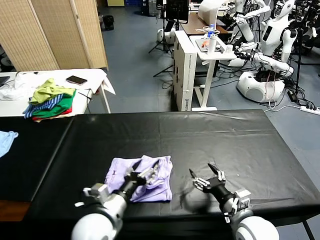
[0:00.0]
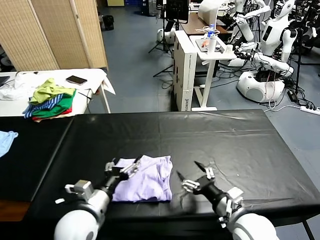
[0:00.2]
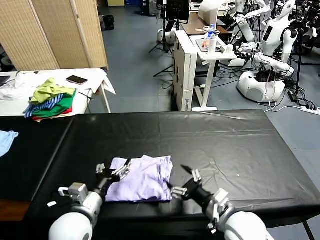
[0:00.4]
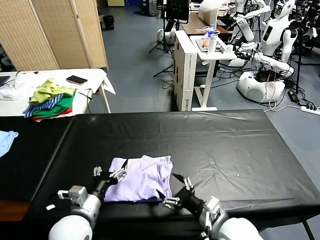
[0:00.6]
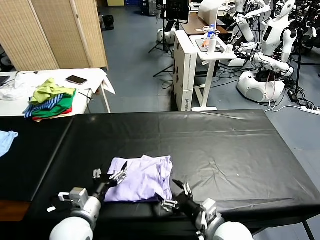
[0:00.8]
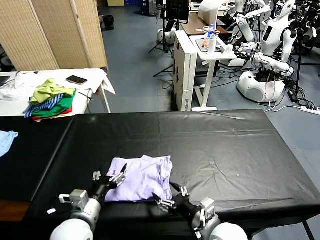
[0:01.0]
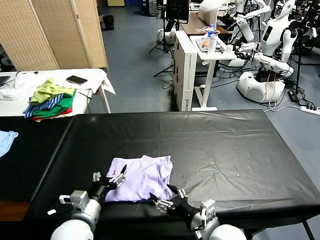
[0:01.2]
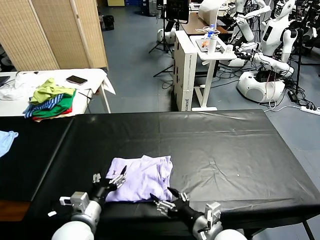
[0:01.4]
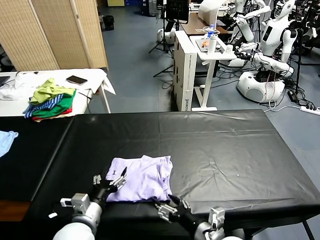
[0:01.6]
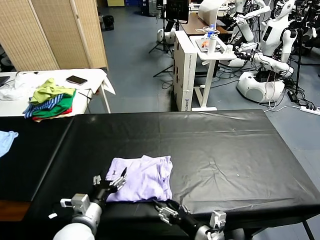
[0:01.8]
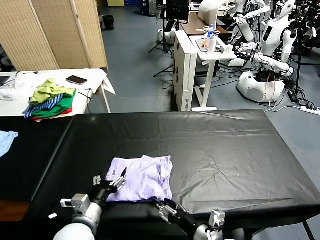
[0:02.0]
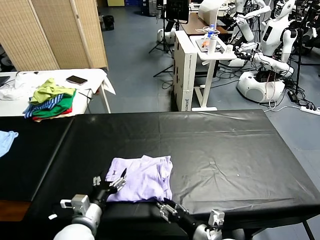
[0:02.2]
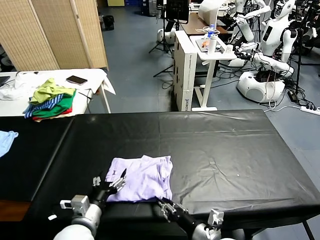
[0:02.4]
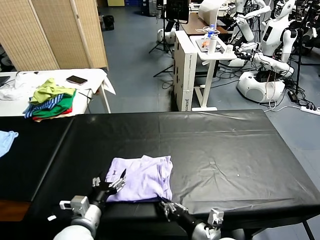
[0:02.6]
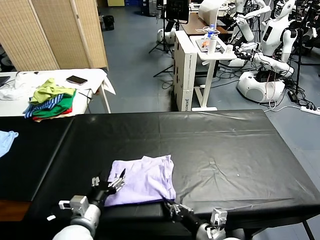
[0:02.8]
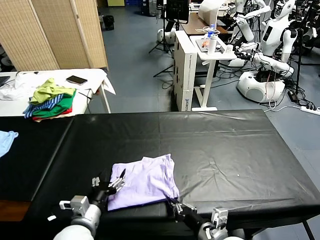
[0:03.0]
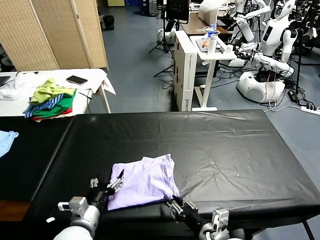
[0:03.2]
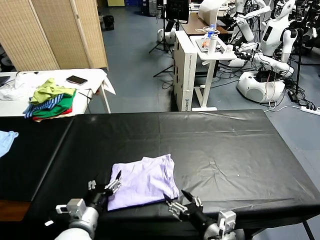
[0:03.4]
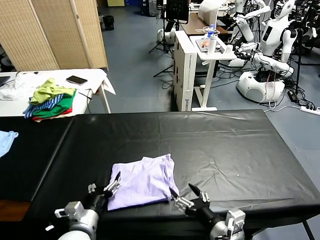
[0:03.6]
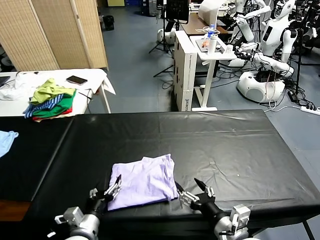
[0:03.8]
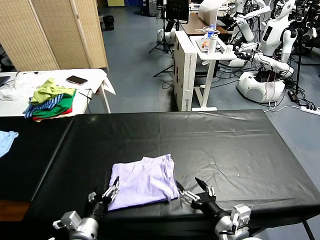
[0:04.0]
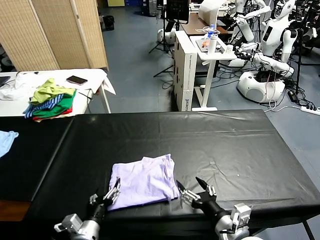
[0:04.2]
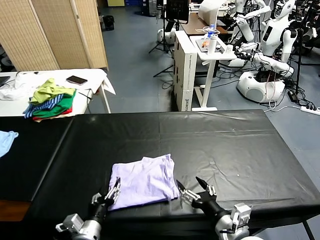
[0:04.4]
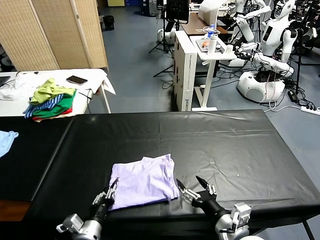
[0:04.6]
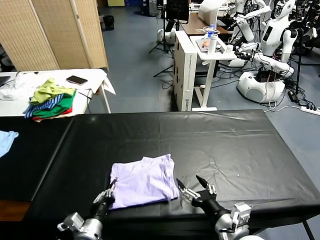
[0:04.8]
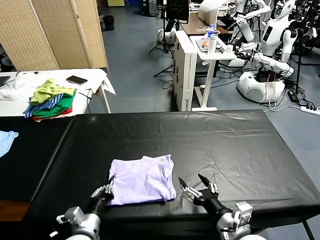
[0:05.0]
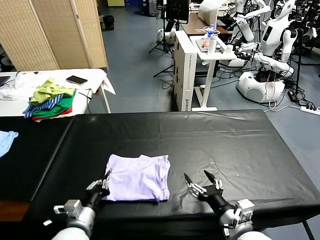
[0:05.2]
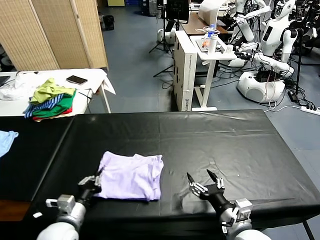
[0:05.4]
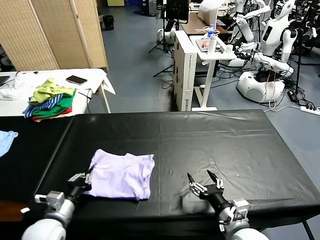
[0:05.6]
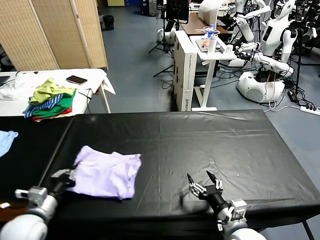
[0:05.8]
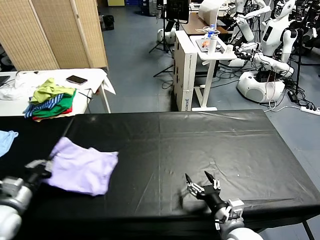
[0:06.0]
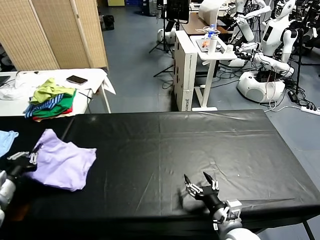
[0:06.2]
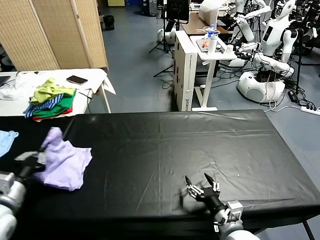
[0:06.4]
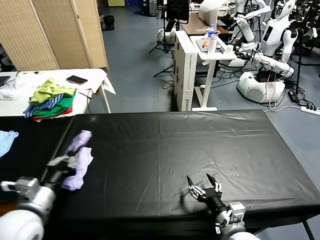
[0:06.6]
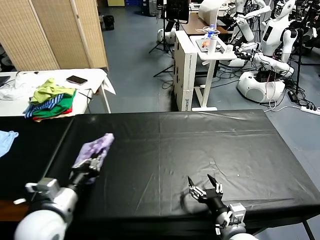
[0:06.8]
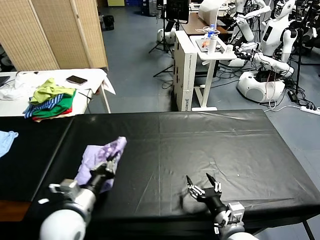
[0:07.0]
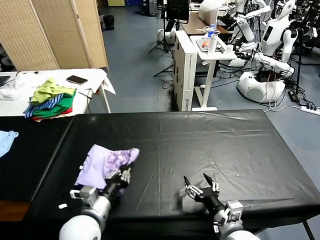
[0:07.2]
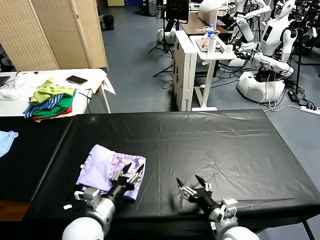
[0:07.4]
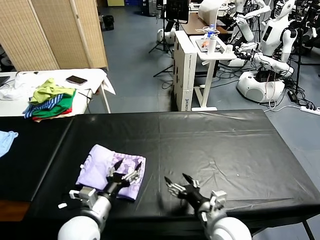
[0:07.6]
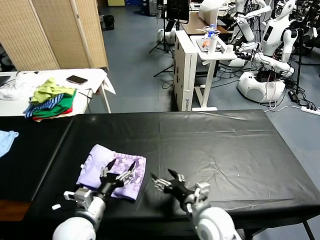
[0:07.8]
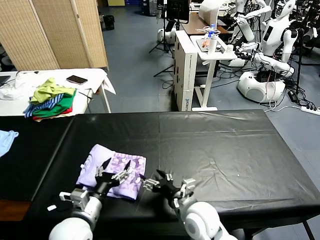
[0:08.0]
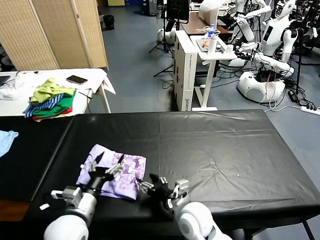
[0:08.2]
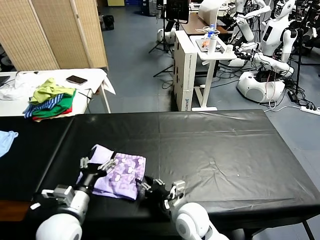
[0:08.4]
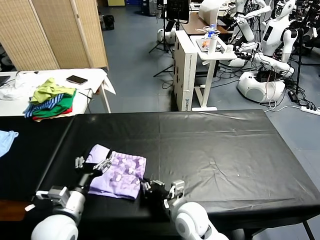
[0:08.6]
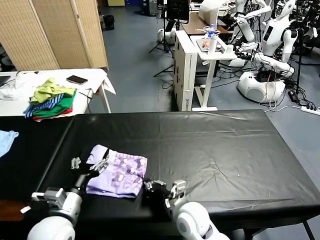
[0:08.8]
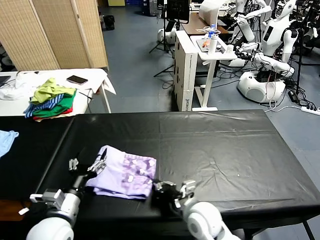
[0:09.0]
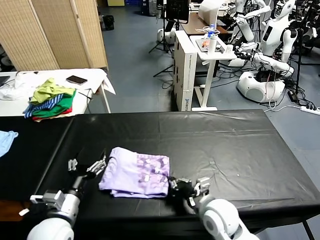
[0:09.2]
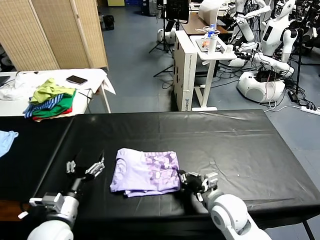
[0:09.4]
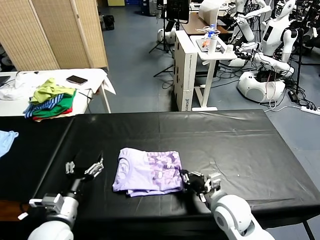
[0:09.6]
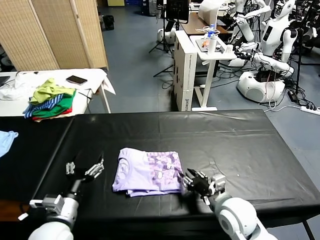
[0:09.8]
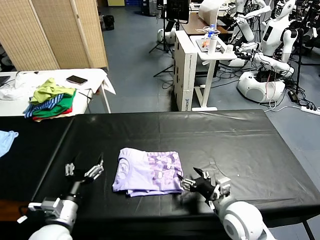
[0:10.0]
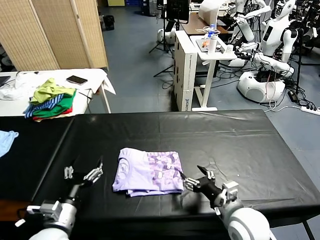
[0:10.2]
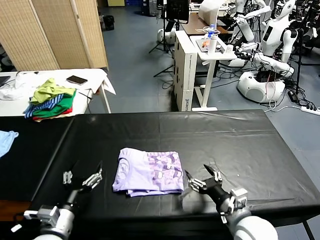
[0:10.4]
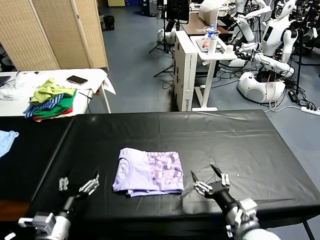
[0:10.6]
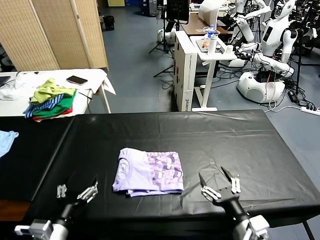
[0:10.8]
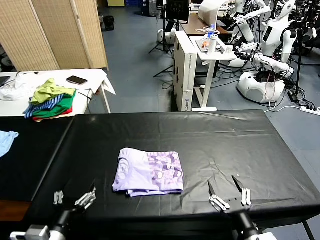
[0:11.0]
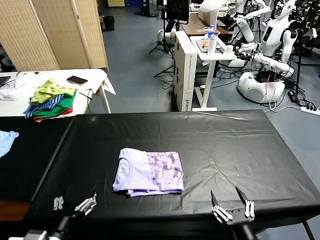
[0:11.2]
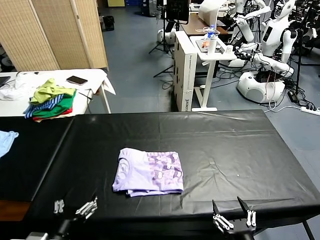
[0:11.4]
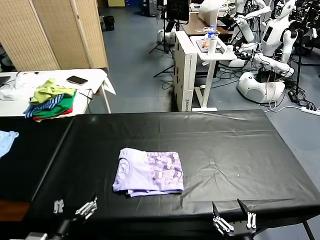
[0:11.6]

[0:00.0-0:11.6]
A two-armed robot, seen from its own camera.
Task of the whole recording: fold and organize the clothes.
Step, 0.2 to 7.8 s: Flip the folded clothes over with left gripper.
Step, 8.0 to 10.2 s: Drag the clothes to the center of the table.
0.0 to 1.4 s: The grippers both shift to the left by about 5 cm.
1.4 to 2.8 s: The right gripper closes its fingers.
2.8 to 4.4 s: The right gripper moves upward, some 5 cm, and opens; the left gripper shifts by about 5 cm.
4.4 to 5.8 s: The left gripper is displaced to the left and upward by about 15 cm, and closes. The right gripper shifts by roughly 5 cm.
5.8 to 7.2 s: The left gripper shifts roughly 15 cm to the right.
7.2 to 8.8 s: The right gripper heads to the left and forward, covering approximately 15 cm, and closes its fingers; the left gripper ends up roughly 5 cm from where it was, and opens up.
8.8 to 10.2 s: The right gripper goes approximately 15 cm to the right and upward, and opens up.
10.2 to 11.6 s: The left gripper goes approximately 10 cm backward. Meanwhile the right gripper moves backward, roughly 20 cm.

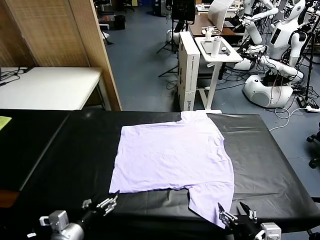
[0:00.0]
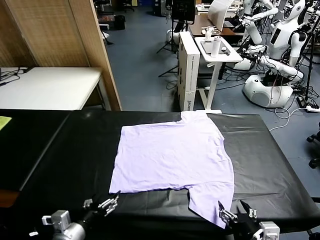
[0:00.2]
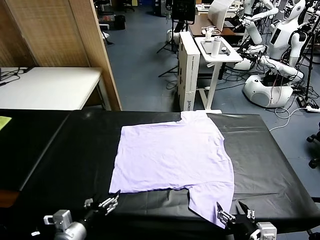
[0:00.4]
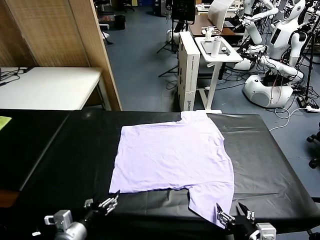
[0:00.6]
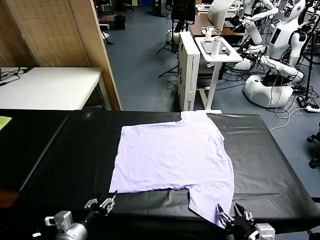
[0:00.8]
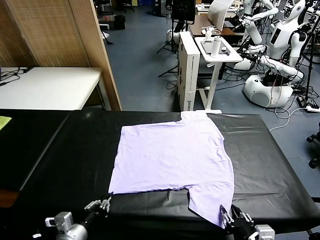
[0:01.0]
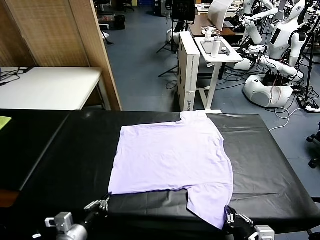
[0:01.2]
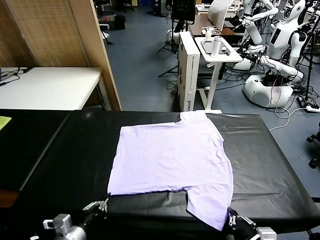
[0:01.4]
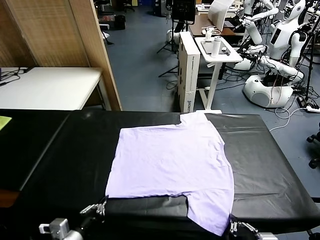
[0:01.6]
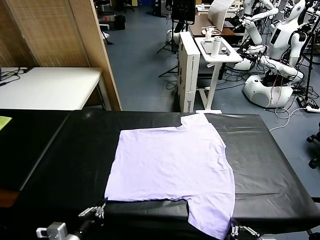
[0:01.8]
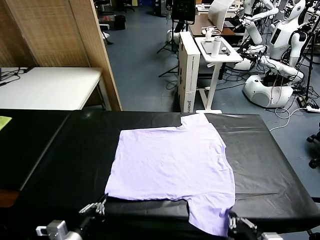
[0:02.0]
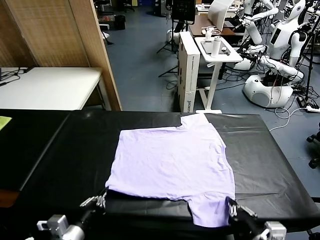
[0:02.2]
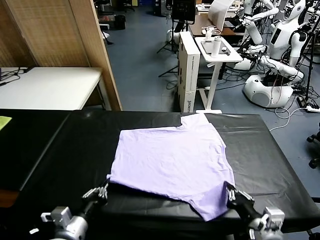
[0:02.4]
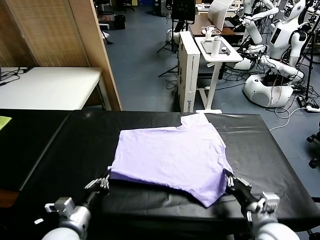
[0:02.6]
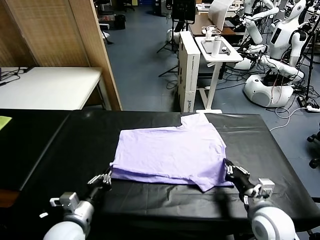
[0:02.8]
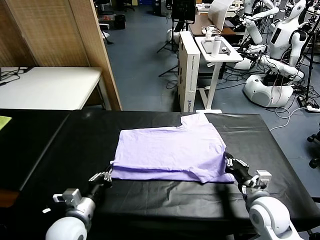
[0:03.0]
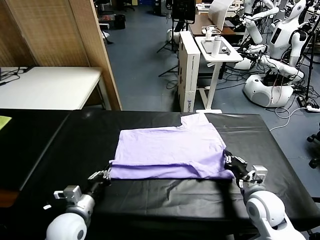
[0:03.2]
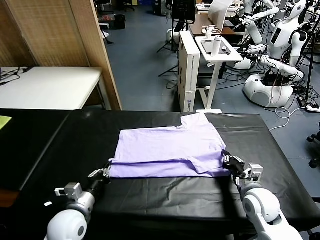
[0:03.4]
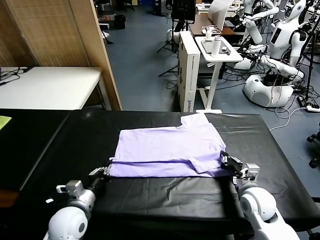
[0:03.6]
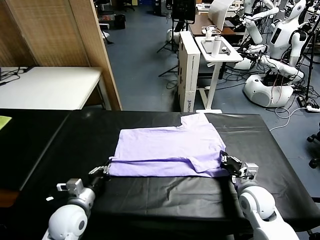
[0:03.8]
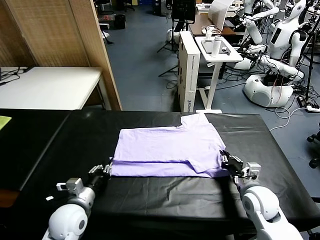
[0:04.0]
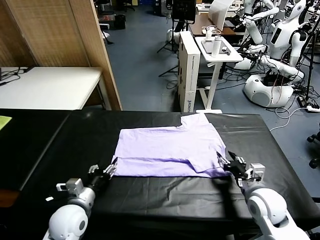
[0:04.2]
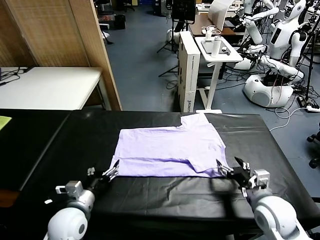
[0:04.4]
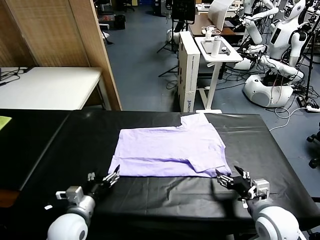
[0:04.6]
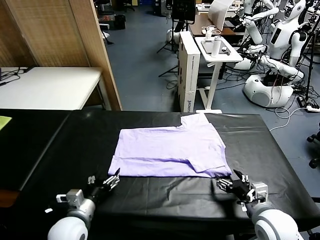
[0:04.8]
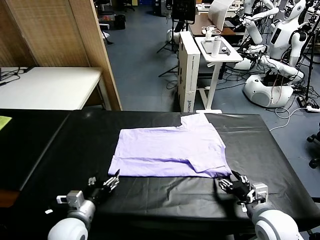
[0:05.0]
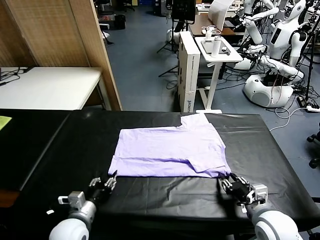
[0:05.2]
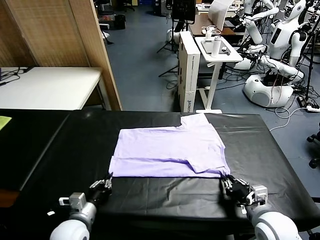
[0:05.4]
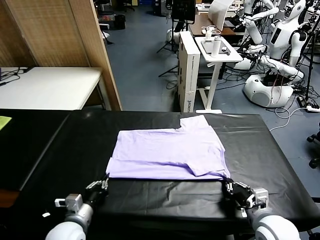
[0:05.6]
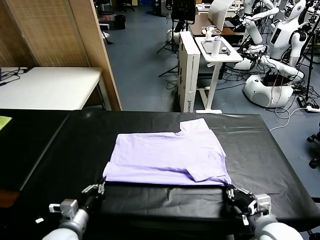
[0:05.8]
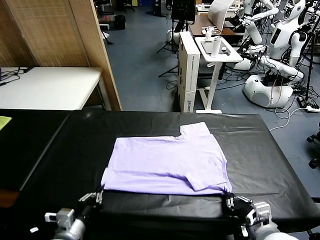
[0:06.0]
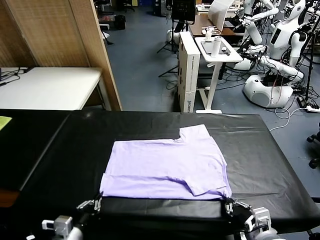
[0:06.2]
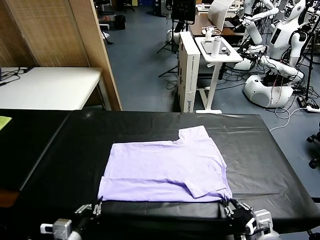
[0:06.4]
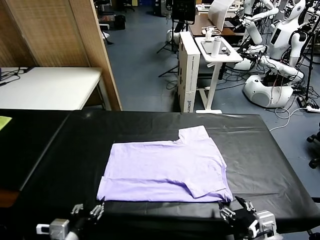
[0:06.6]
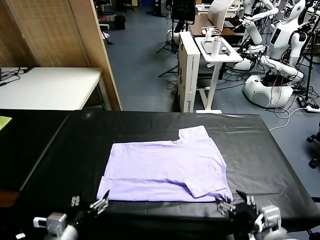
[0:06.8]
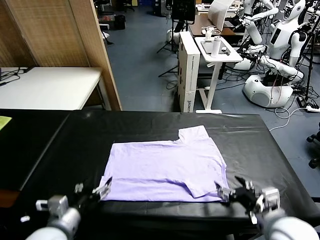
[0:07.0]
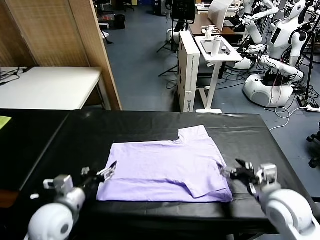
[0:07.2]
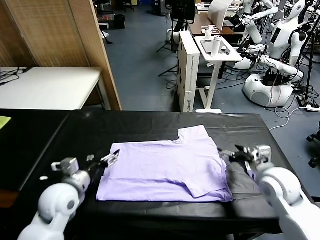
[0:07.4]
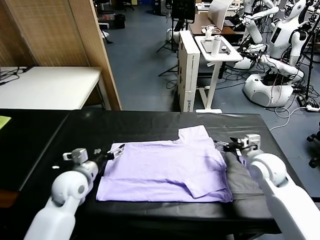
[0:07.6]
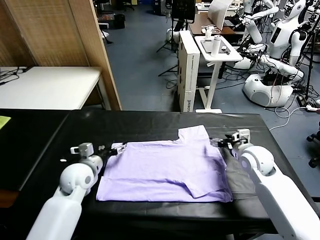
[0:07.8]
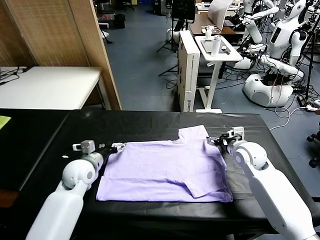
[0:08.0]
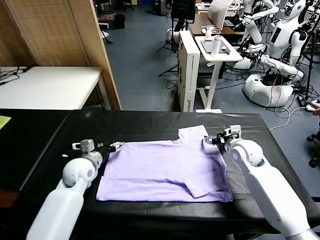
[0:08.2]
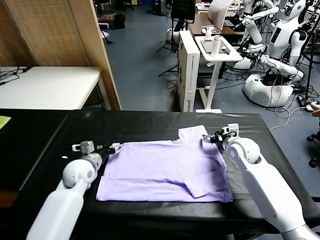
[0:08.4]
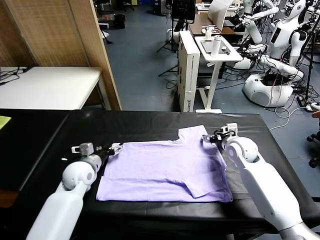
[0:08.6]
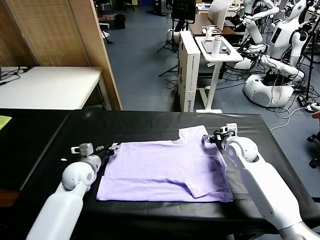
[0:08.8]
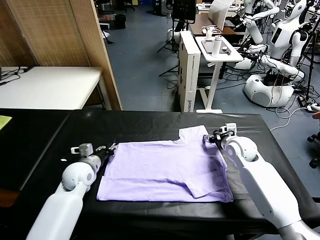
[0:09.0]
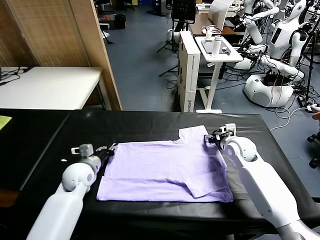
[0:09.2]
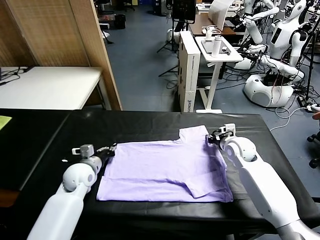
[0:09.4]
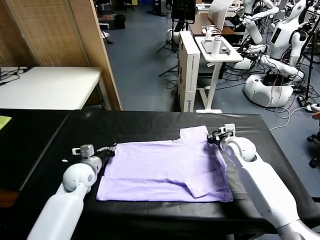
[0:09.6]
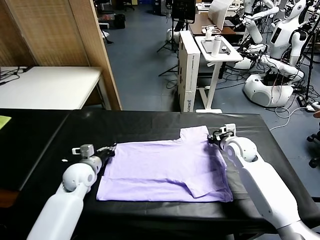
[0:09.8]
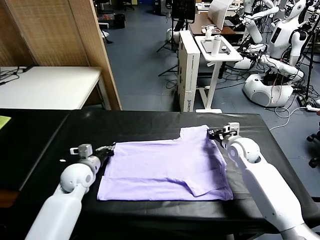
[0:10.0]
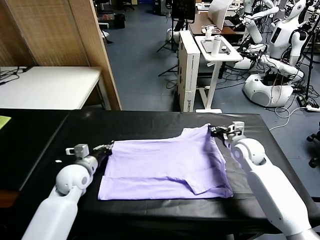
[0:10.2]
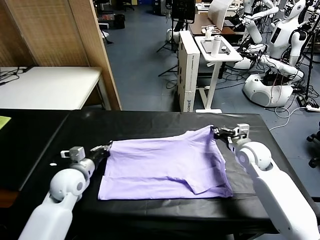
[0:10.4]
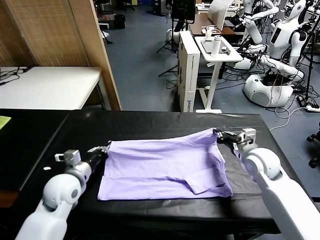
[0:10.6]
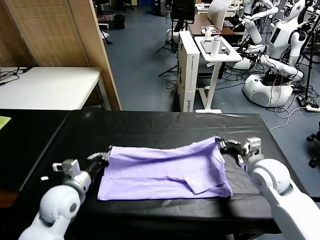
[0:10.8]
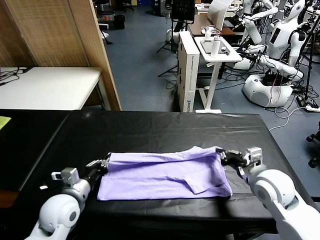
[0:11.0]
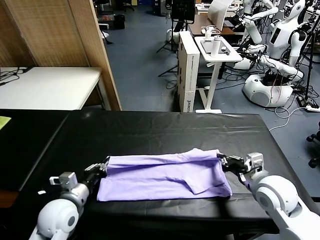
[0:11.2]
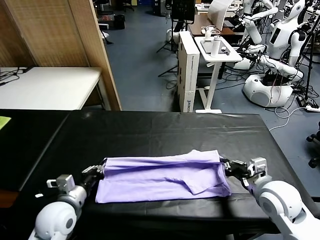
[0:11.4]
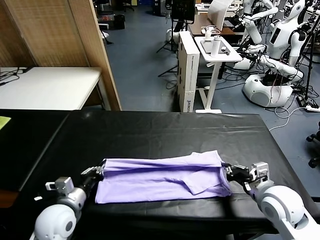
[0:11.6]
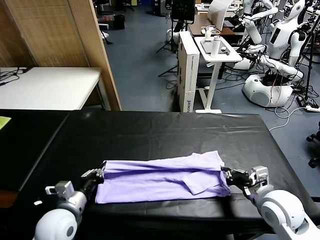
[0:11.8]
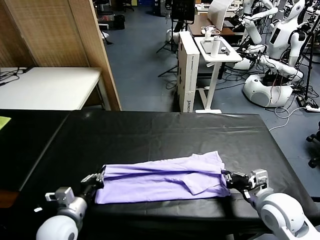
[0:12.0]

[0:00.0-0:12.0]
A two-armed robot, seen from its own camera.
Task of the whole recording: fold and organize the clothes.
Step, 0.0 to 1.4 s: use both grippers simultaneously to clamp the lower edge of the clothing fabric.
Step, 1.6 to 4.2 s: use both grippers to drag the lower edge of the fabric forward and fold it over the upper edge.
Step, 4.4 to 6.6 s: Drag the clothes downward with both gripper.
Step, 6.8 to 9.6 s: use both grippers simultaneously to clamp the upper edge of the clothing fabric.
1.6 to 3.0 s: The right gripper is displaced forward by approximately 20 cm, while the left gripper goes approximately 10 cm forward.
3.0 to 4.4 s: The right gripper shifts approximately 5 cm backward, and opens. Meanwhile the left gripper opens.
4.4 to 6.0 s: Both grippers move backward, roughly 10 cm. The right gripper closes its fingers. Meanwhile the left gripper closes up.
6.0 to 7.6 s: The grippers both shift forward by some 25 cm. The right gripper opens; the left gripper opens up.
7.6 to 9.0 s: The left gripper shifts by some 5 cm, and closes its fingers. Meanwhile the right gripper shifts roughly 5 cm forward, and closes up.
9.0 to 10.4 s: The right gripper moves backward, about 10 cm, and closes up; the left gripper shifts roughly 5 cm backward, and closes.
10.4 to 12.0 s: Both grippers move backward, roughly 15 cm.
